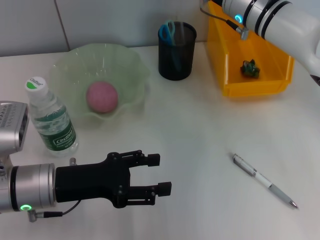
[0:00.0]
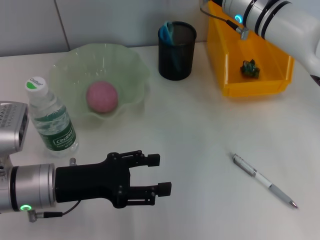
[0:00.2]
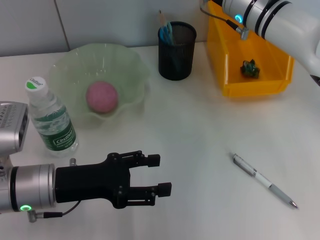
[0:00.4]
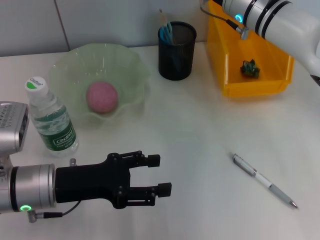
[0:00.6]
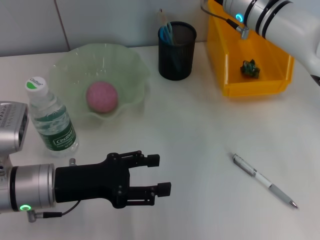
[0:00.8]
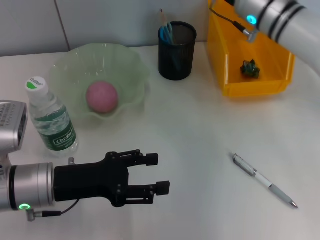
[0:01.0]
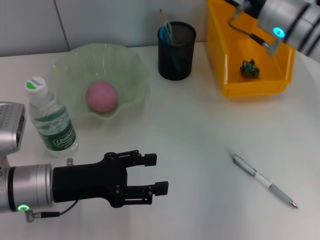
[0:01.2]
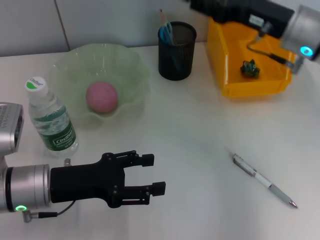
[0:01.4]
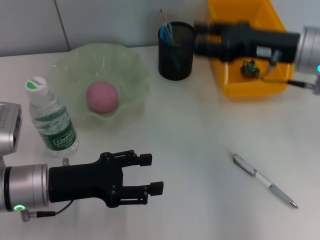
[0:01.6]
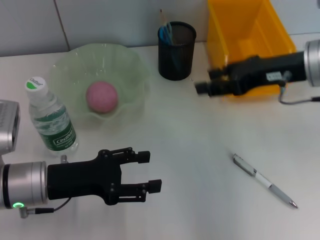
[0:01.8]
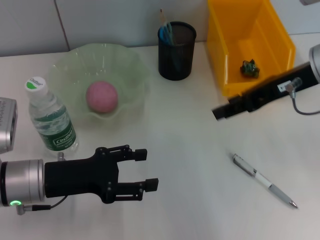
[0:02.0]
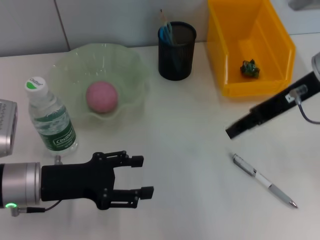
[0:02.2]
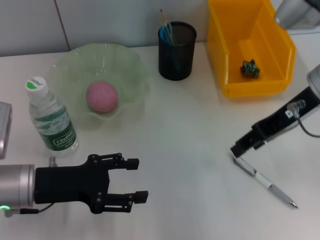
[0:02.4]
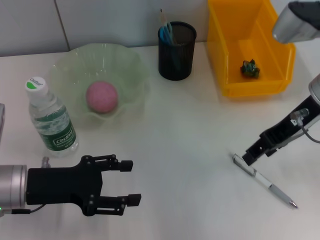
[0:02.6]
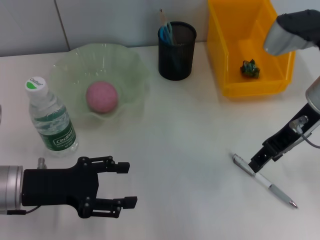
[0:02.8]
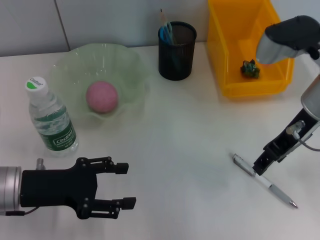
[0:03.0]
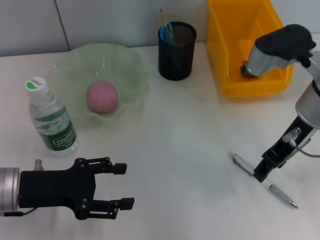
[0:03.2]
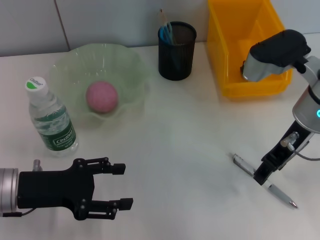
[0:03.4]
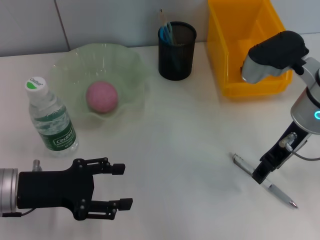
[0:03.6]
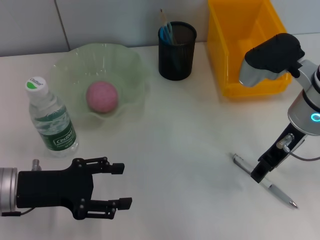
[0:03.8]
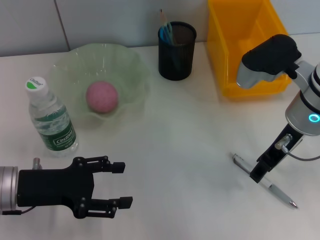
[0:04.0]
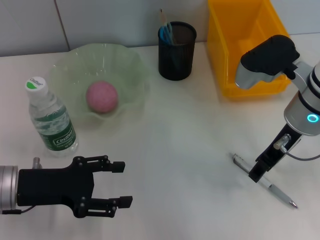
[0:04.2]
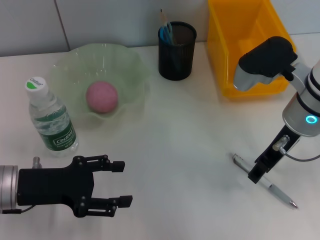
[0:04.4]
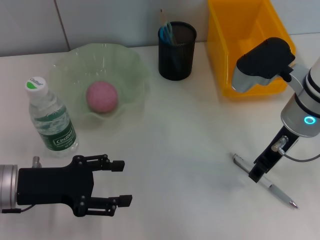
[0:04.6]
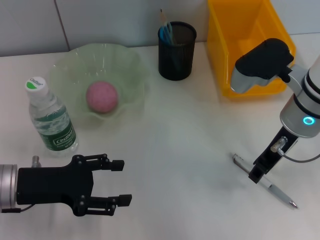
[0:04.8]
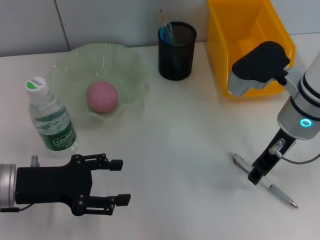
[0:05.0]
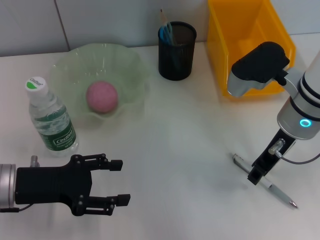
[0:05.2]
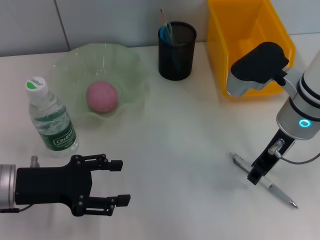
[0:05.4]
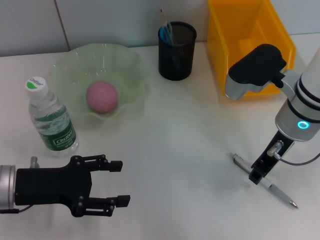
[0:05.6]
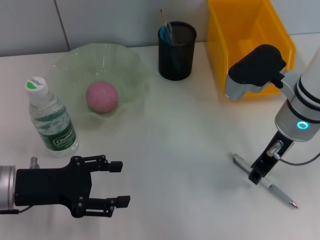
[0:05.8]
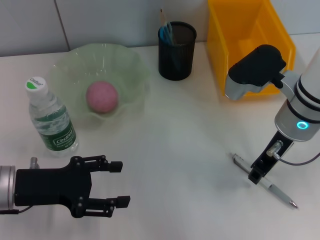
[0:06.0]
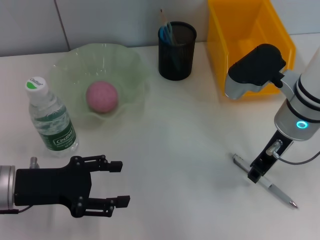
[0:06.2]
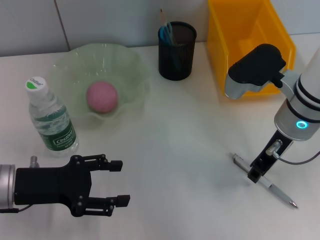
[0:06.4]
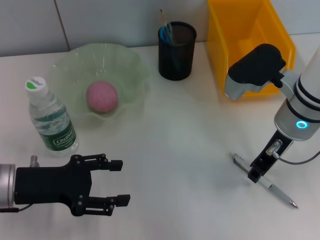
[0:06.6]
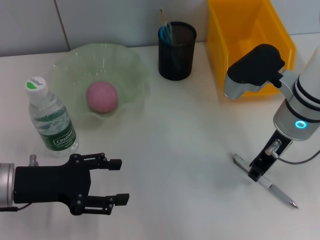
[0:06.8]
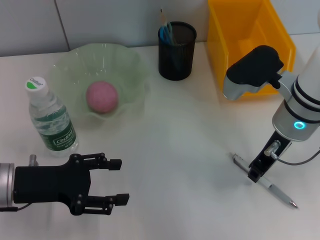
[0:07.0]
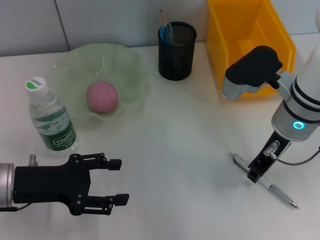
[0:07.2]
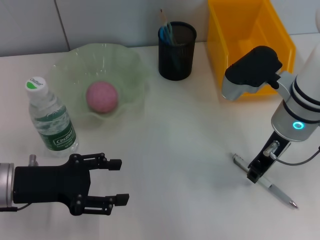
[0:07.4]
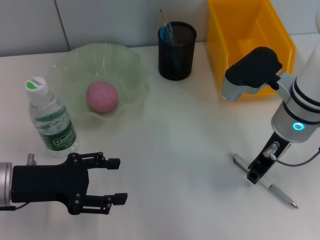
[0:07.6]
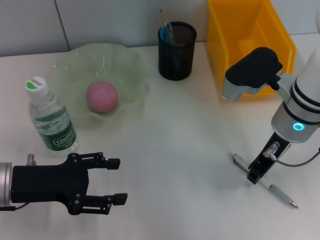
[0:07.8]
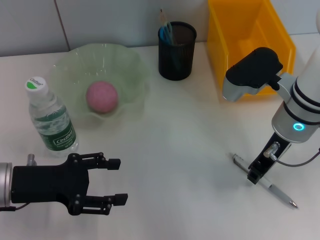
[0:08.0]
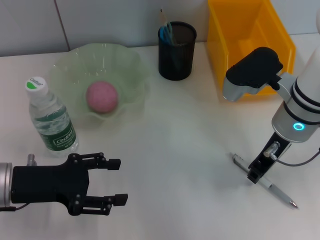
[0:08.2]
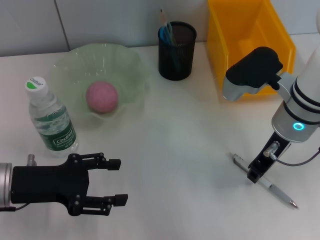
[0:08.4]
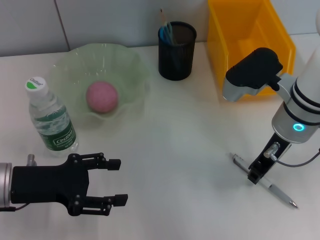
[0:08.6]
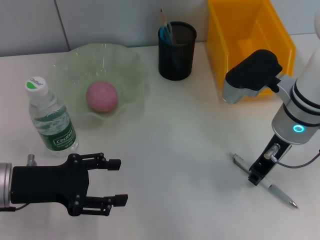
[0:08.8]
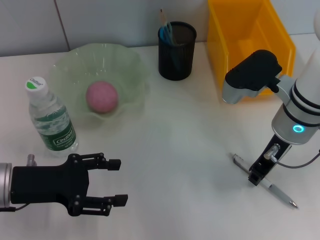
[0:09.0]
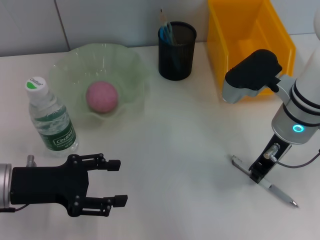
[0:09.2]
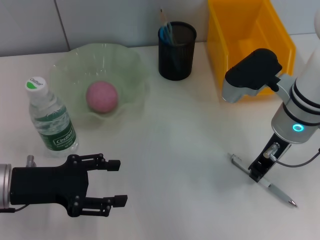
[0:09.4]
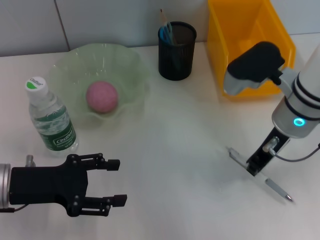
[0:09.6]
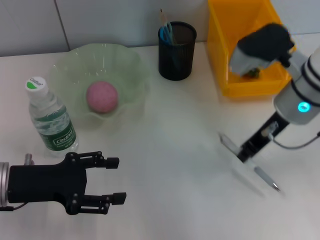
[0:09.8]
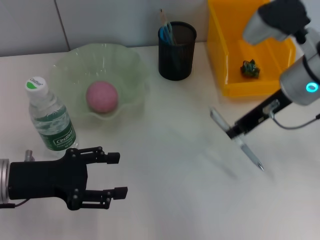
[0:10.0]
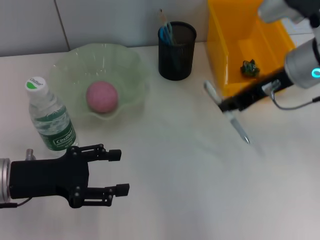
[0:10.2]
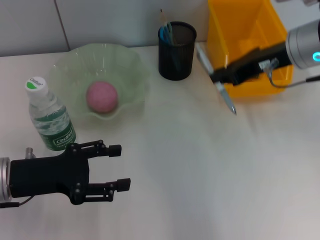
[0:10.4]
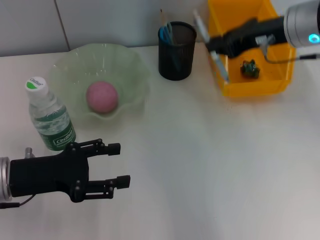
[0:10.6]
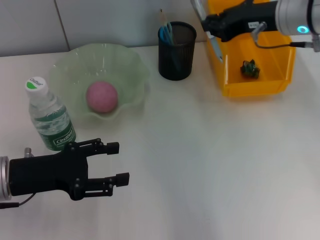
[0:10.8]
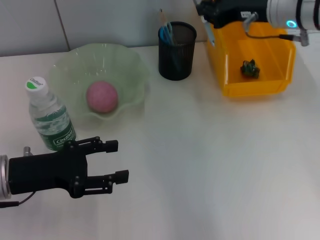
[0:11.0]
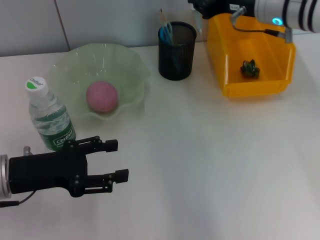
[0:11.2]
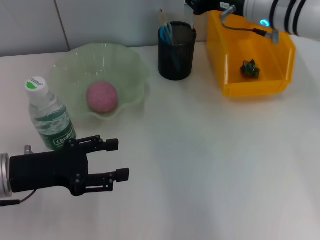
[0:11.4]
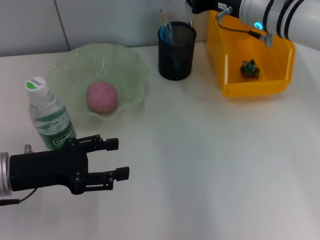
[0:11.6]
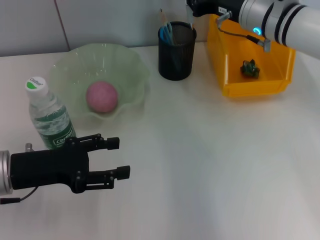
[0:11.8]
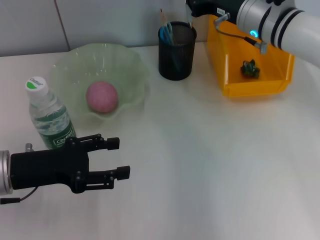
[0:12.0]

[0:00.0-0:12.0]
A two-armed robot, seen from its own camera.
Step, 0:00.4 to 0:09.4: Grab the gray spring-action pen with the right hand.
0:00.0 to 0:01.6: The right gripper shifts about 15 cm backward and to the right.
0:03.0 to 0:04.4: The grippers stay close to where they were, moving slightly.
0:04.4 to 0:06.0: The right gripper closes up.
0:06.0 to 0:09.0: Neither gripper changes place.
0:09.0 to 0:10.4: The right gripper goes approximately 5 cm upward.
0:10.4 to 0:12.0: The right gripper heads forward, covering roughly 5 cm.

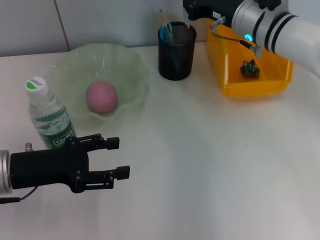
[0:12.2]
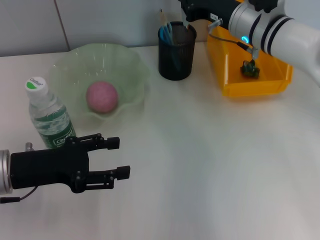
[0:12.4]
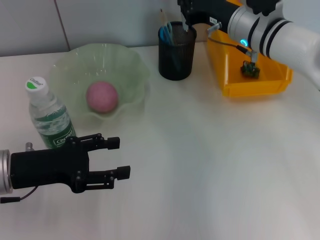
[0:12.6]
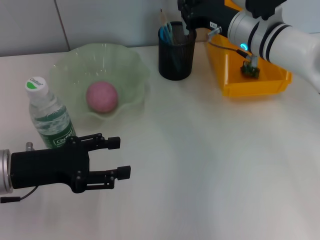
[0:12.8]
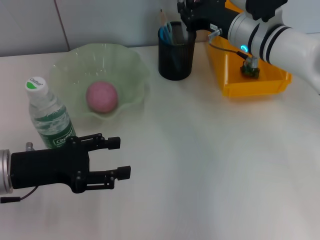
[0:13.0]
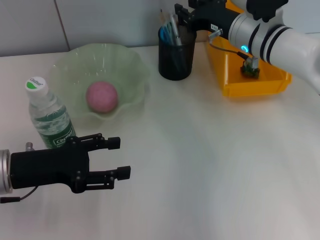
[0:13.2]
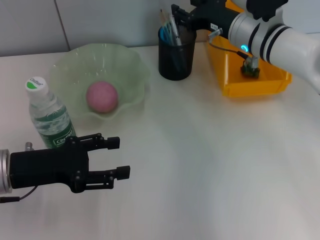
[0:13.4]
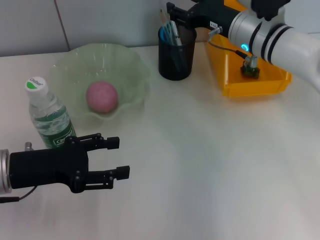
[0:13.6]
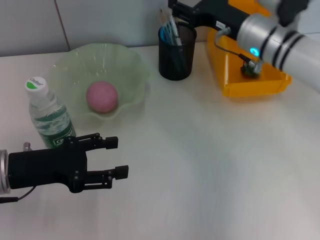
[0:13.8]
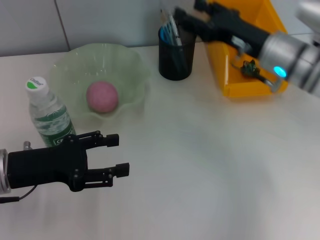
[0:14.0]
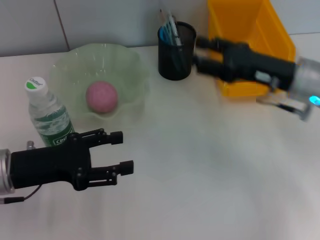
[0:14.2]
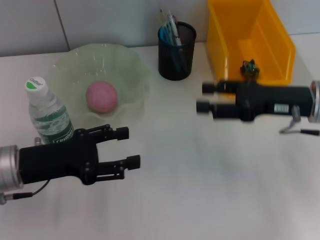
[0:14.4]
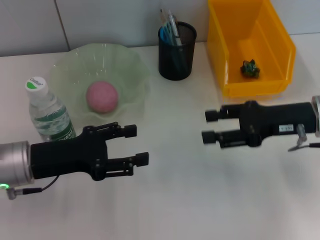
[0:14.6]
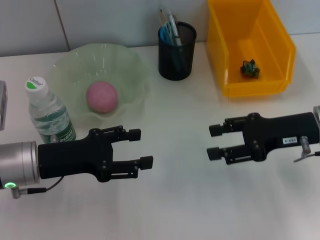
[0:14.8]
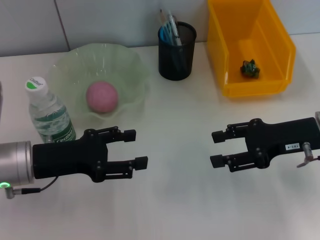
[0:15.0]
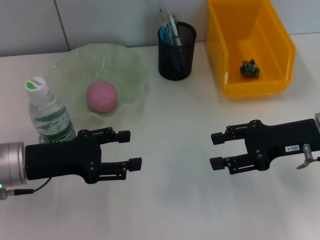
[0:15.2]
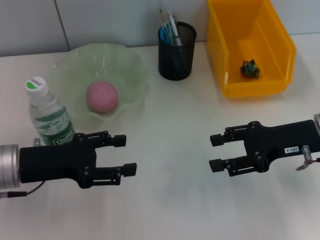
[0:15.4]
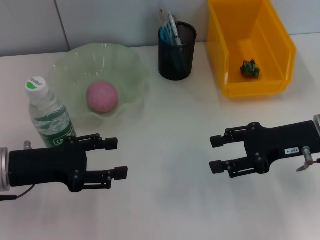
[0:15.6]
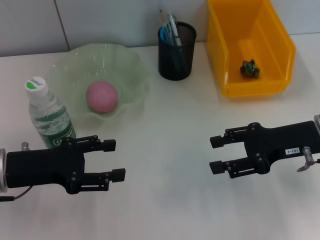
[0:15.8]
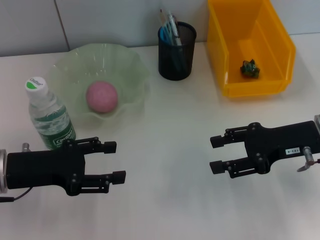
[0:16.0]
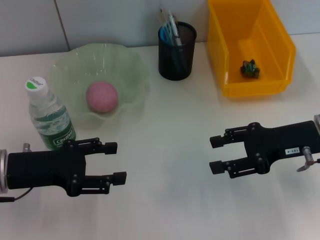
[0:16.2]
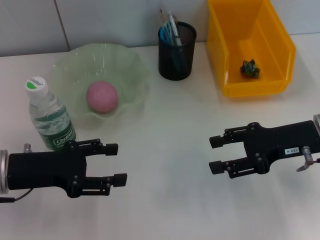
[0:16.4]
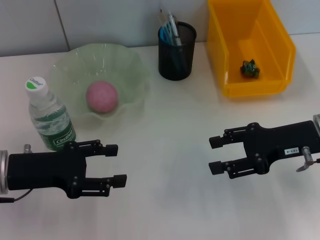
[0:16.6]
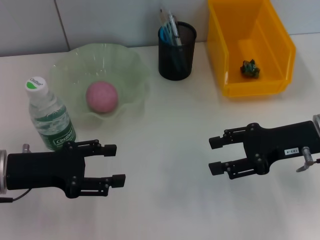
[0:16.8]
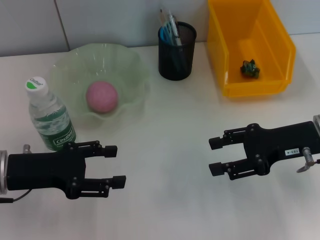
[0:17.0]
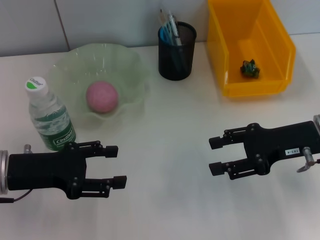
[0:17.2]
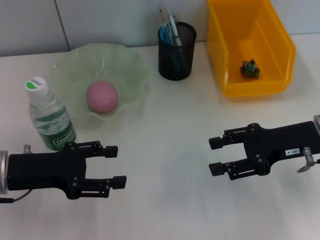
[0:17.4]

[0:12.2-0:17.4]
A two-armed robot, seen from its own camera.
0:12.2 to 0:14.0: The right gripper is displaced backward by about 5 cm, and opens.
0:14.0 to 0:15.6: The right gripper moves backward and to the right, roughly 10 cm.
0:15.6 to 0:17.4: Neither gripper changes place.
